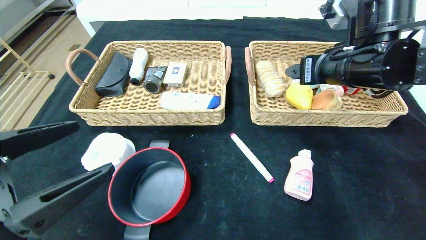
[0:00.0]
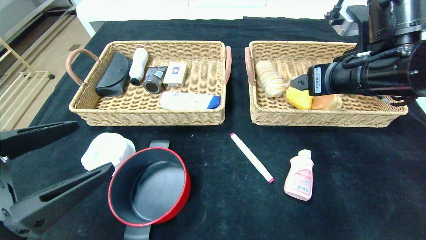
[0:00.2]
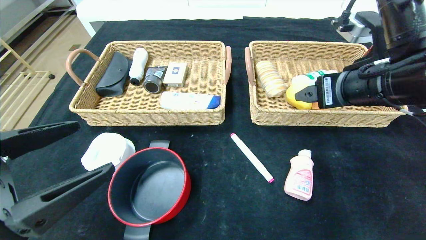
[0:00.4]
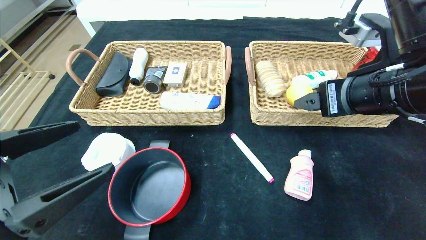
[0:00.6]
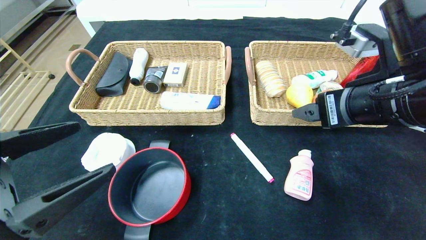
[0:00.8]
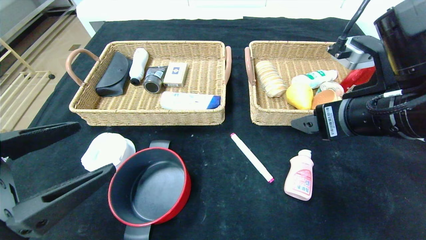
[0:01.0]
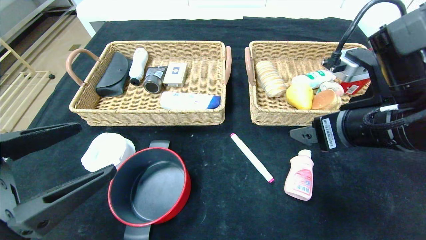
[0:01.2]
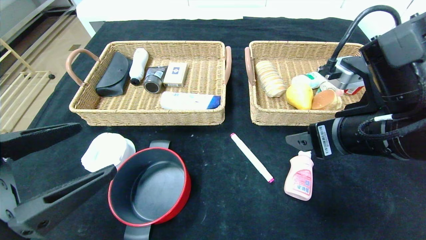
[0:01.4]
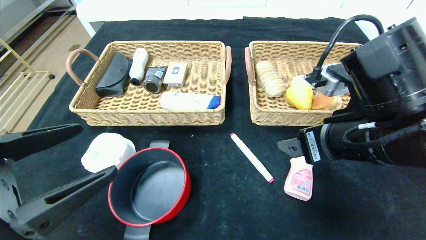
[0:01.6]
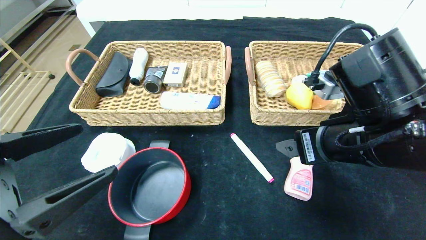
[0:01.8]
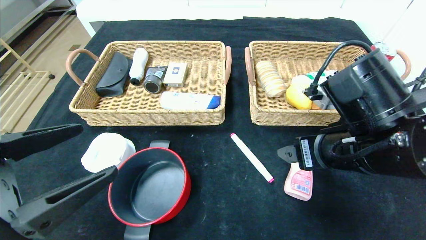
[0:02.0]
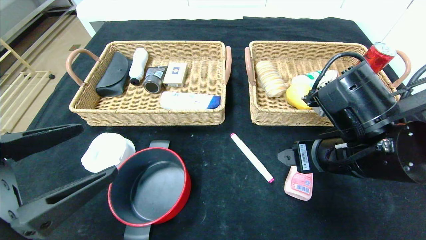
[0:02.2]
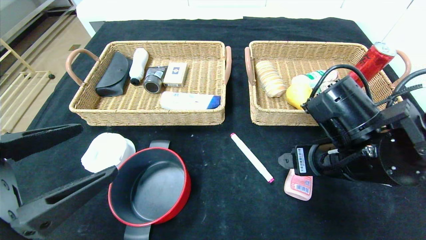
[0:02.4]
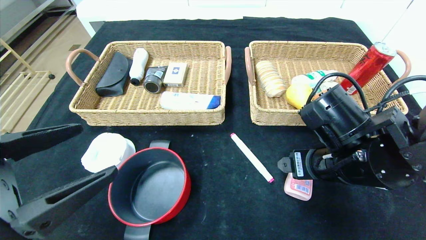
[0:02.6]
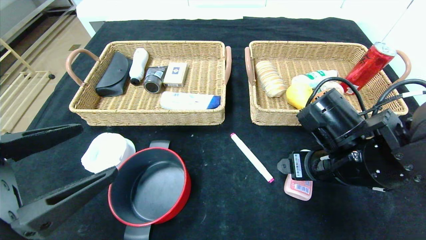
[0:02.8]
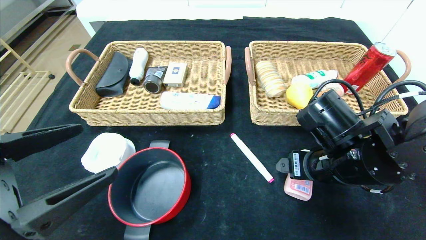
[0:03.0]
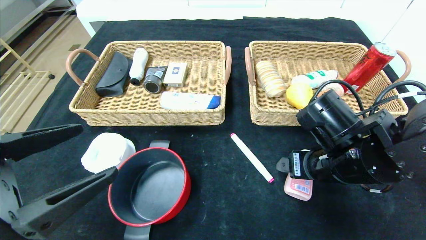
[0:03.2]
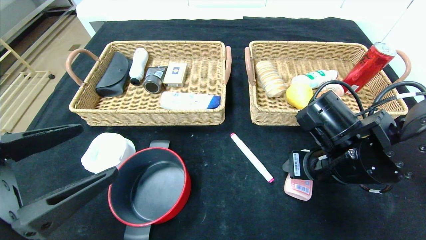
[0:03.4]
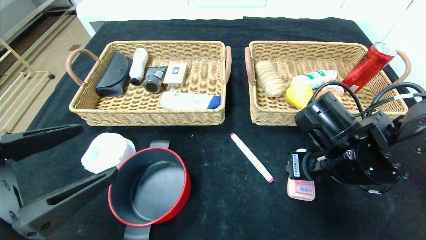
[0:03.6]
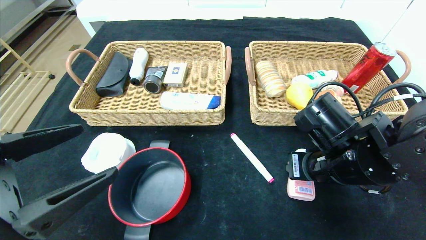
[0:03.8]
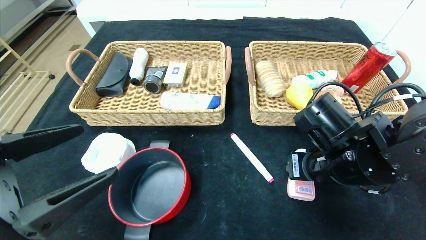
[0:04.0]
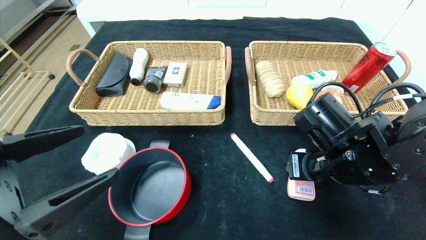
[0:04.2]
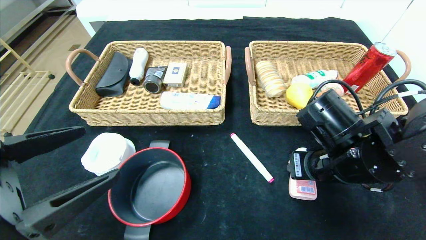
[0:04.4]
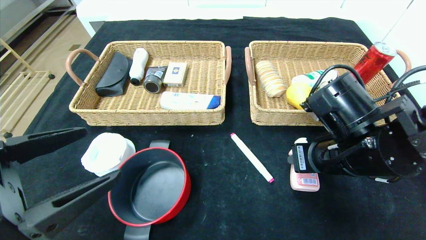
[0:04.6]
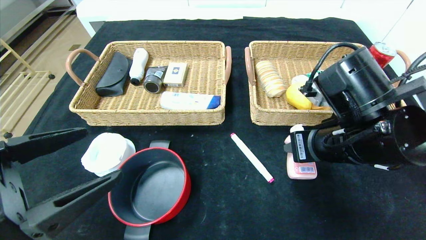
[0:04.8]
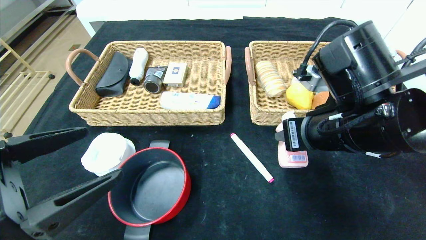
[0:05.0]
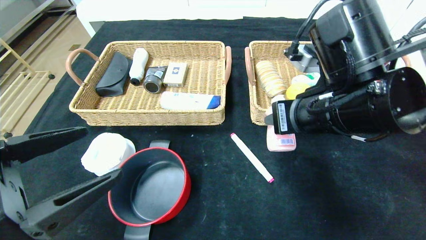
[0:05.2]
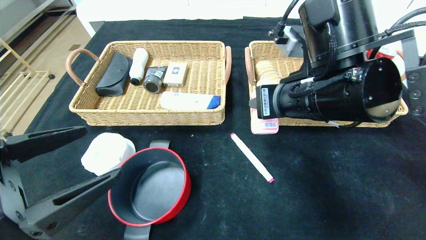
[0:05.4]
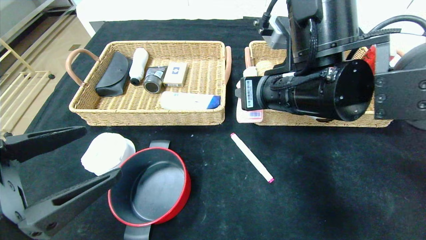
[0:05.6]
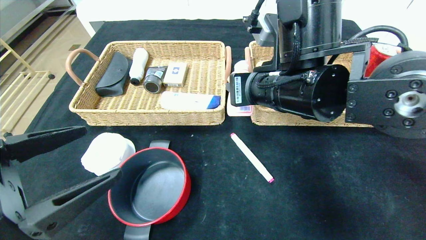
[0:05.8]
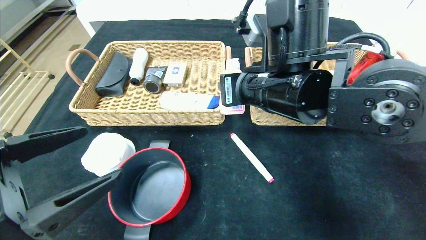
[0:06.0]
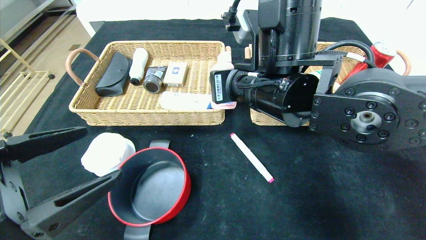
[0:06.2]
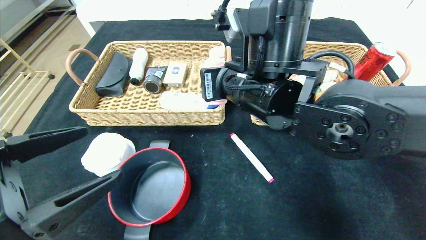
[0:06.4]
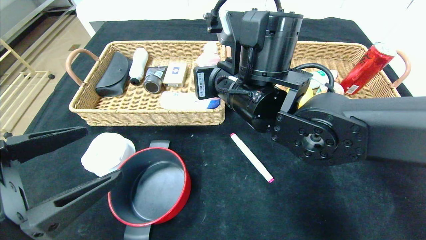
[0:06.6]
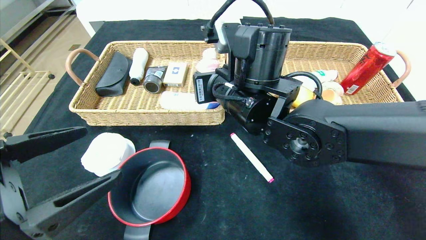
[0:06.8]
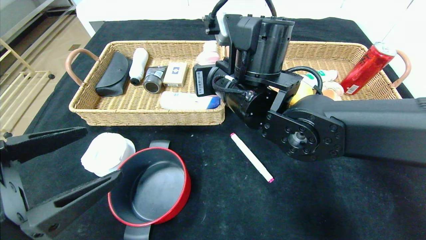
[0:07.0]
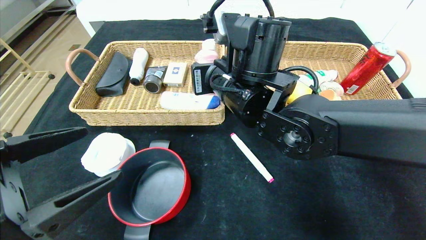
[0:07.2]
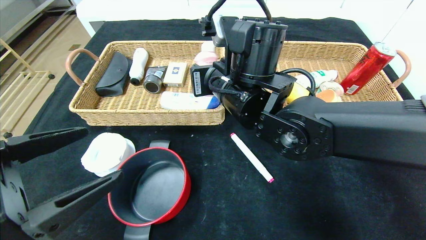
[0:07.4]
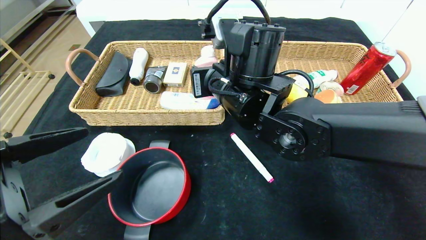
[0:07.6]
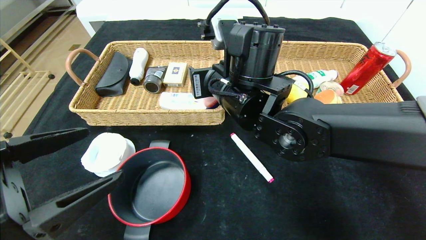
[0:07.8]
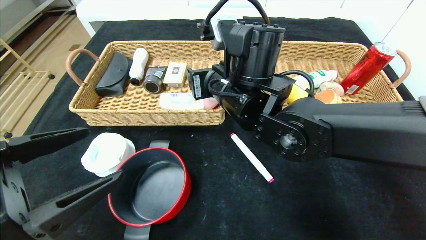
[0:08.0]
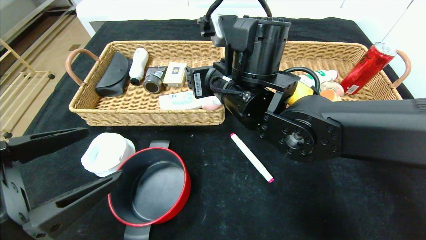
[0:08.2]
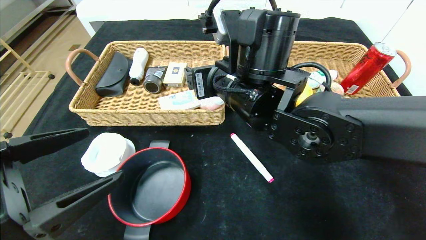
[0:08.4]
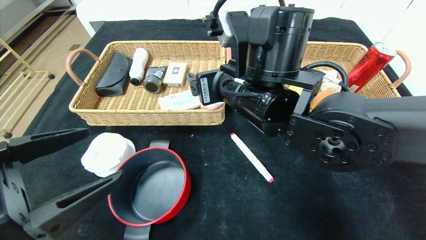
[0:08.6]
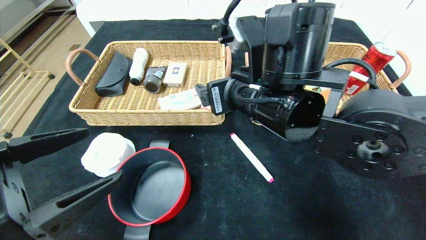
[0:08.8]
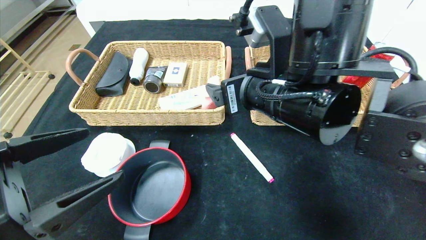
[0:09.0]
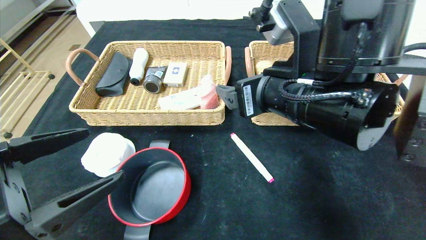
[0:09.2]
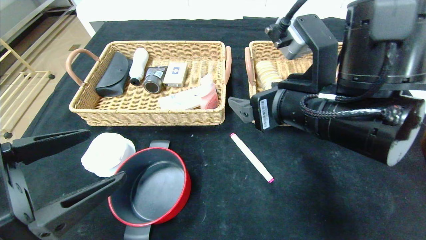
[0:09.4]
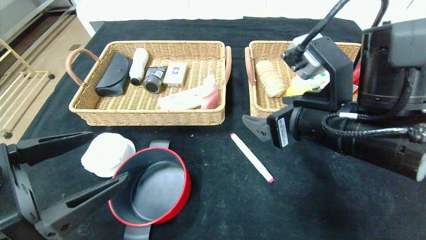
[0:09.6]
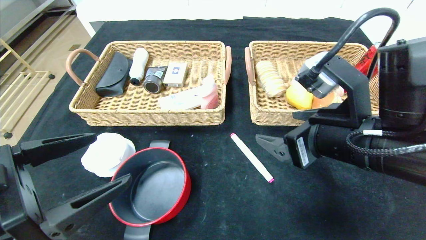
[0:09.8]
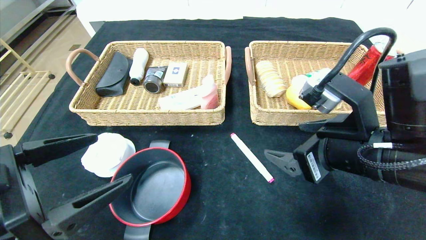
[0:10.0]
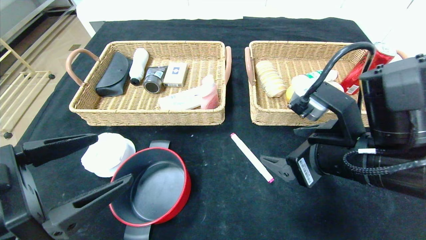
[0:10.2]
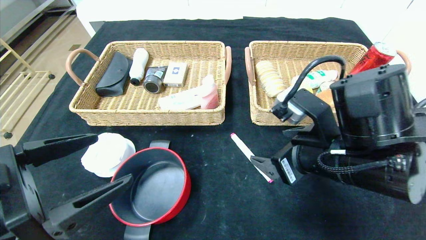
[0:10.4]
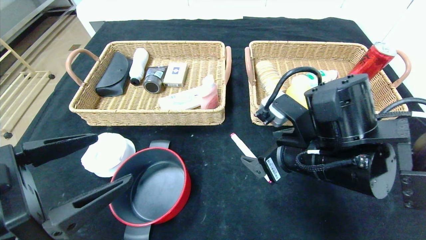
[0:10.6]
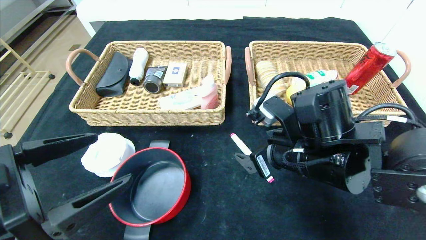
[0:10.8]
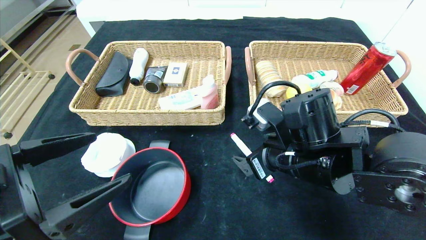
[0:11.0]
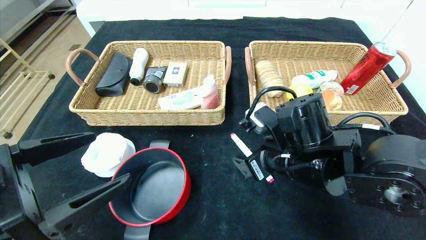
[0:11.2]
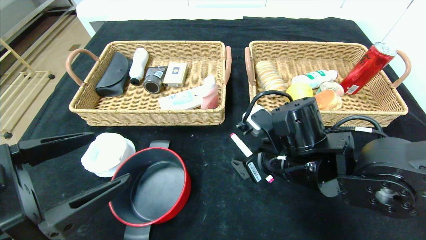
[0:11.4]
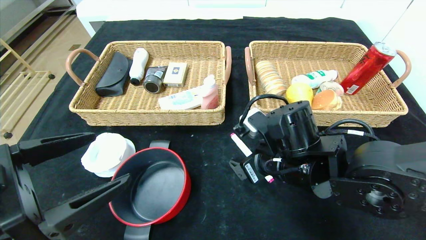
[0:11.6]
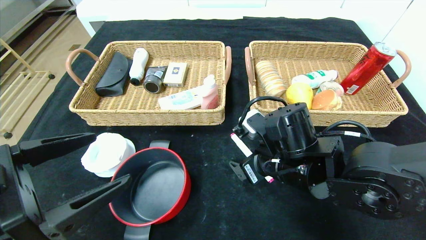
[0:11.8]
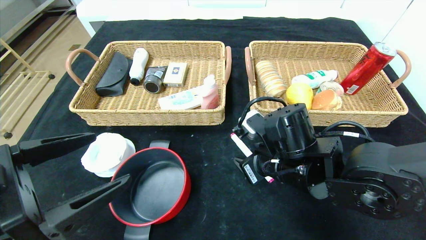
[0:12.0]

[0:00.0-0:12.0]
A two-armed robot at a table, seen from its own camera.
0:00.0 to 0:01.6: The right gripper goes some 10 cm backward and downward.
0:01.6 to 0:03.0: The right gripper travels downward by some 5 cm.
0:03.0 to 0:04.4: The right gripper closes up.
0:04.4 to 0:06.0: The right gripper is displaced to the left and upward by about 15 cm.
0:06.0 to 0:07.6: The right gripper travels to the left by some 5 cm.
0:07.6 to 0:09.0: The right gripper travels backward and to the right by roughly 10 cm, and opens.
0:09.0 to 0:10.4: The right gripper heads to the right and downward, covering approximately 10 cm.
0:10.4 to 0:12.0: The right gripper travels downward by about 5 cm, and closes its fingers.

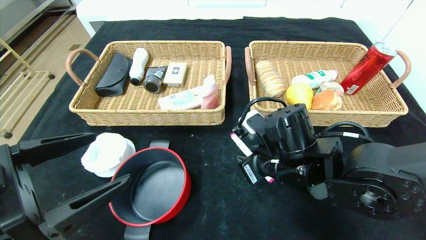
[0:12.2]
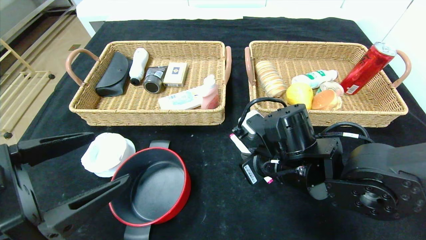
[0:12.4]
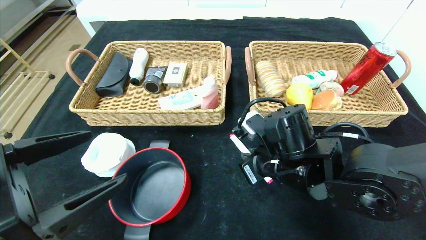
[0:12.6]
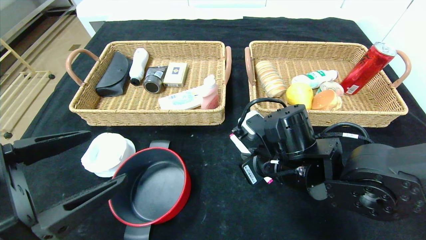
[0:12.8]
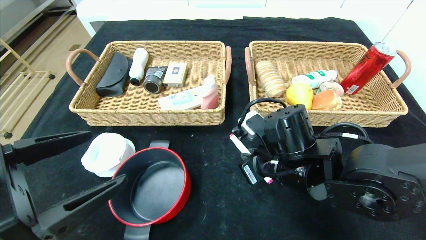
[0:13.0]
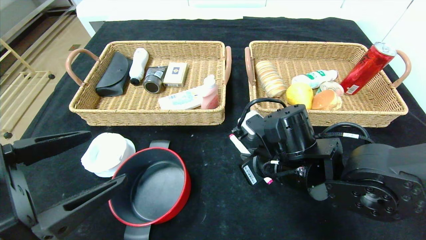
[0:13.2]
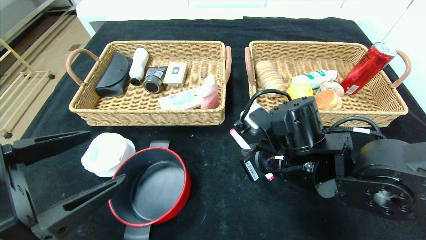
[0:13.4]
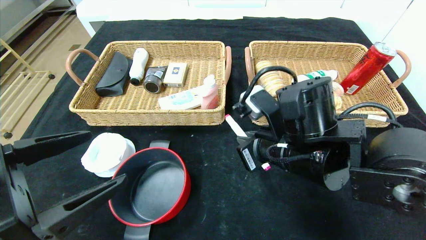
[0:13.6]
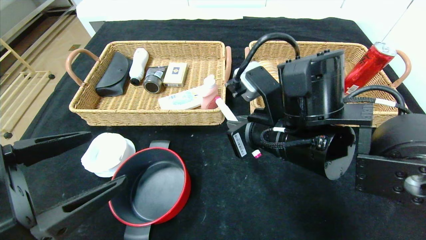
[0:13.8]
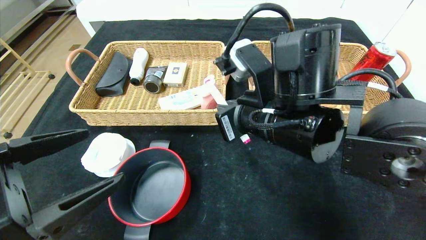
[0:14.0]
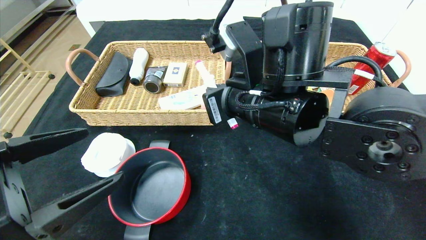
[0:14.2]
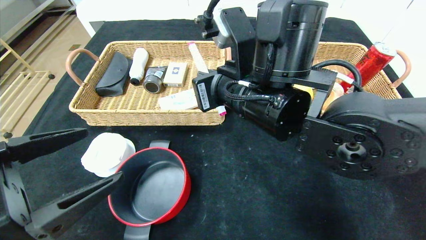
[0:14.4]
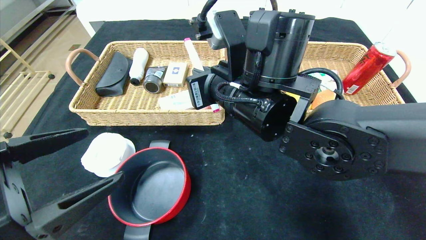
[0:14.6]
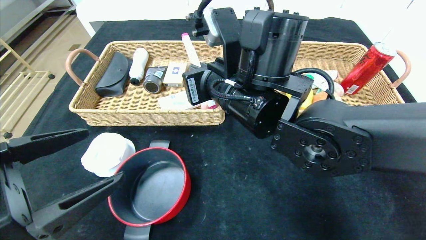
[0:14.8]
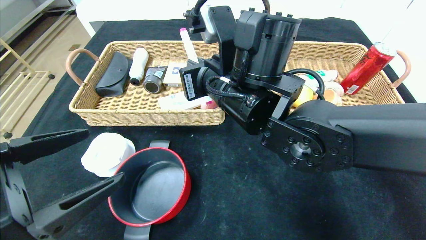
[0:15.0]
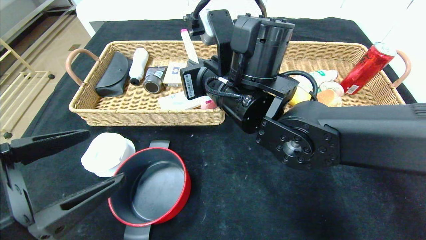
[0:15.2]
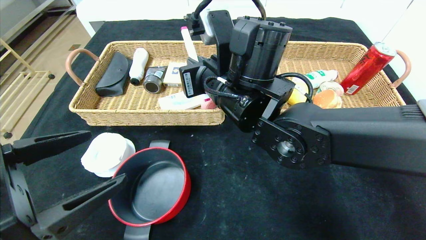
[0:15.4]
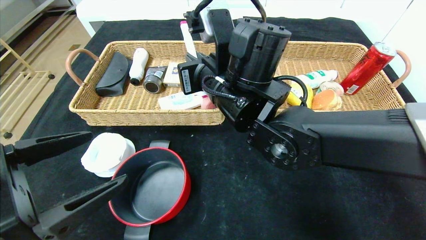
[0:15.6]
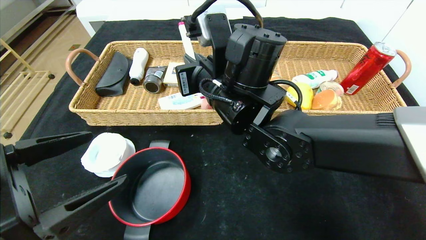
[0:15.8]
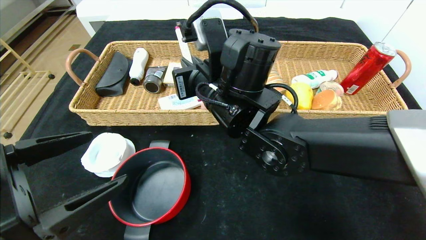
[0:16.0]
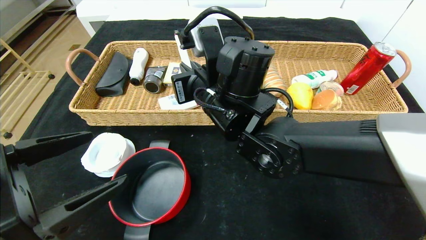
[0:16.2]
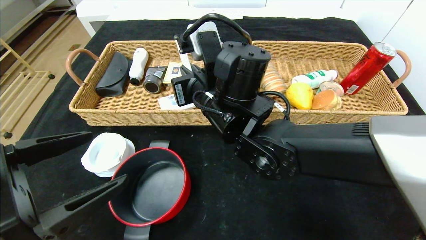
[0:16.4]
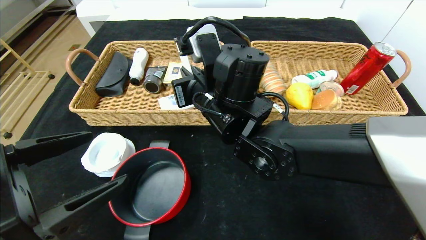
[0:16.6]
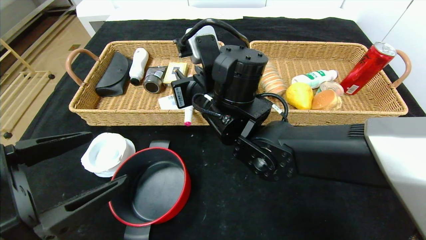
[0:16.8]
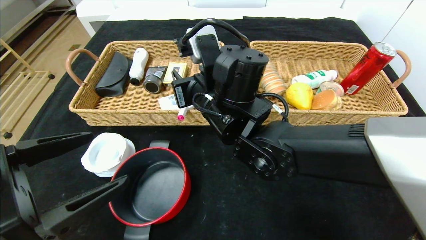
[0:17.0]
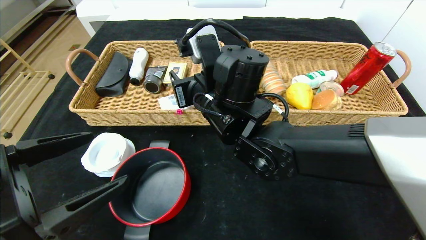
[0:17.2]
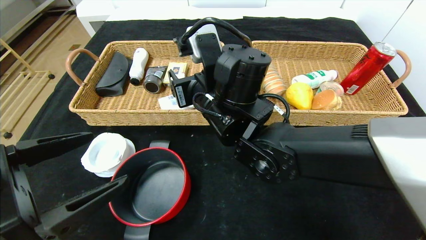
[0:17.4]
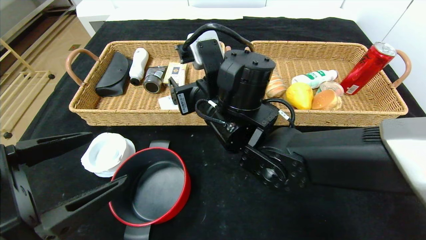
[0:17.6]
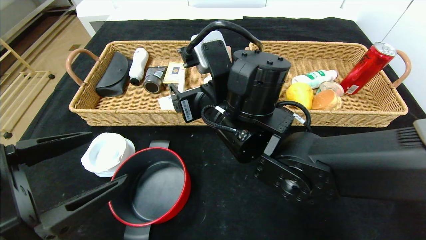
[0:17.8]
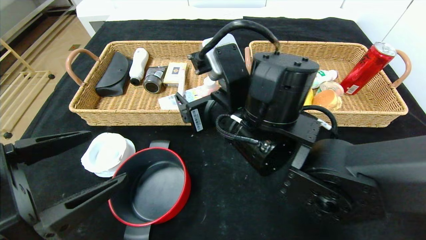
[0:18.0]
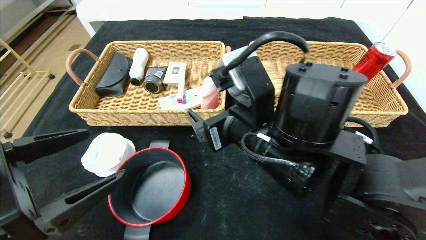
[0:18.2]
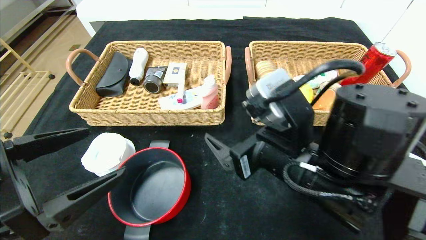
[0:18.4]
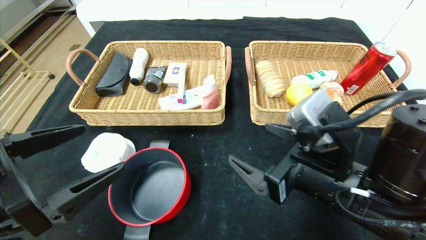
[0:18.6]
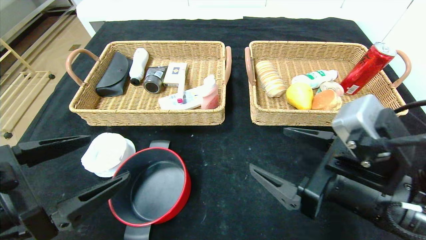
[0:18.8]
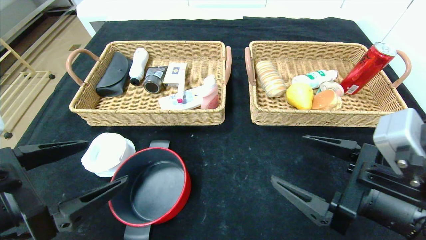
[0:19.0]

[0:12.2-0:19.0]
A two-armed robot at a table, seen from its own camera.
0:12.2 to 0:13.6: The right gripper closes.
0:13.6 to 0:15.0: The right gripper is displaced to the left and upward by some 10 cm.
0:16.2 to 0:17.6: The right gripper opens up.
0:17.6 to 0:19.0: The right gripper is displaced to the right and backward by about 25 cm.
